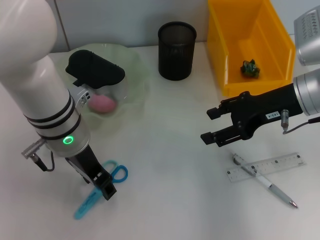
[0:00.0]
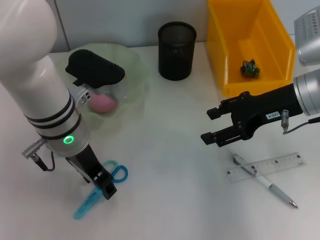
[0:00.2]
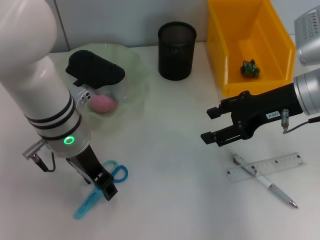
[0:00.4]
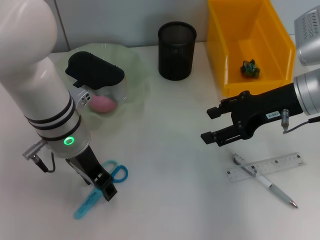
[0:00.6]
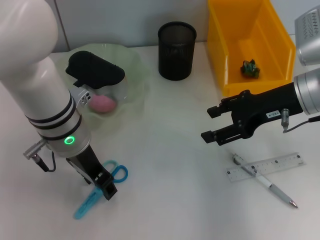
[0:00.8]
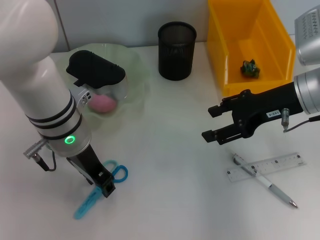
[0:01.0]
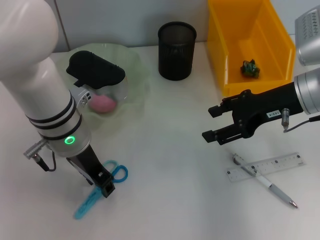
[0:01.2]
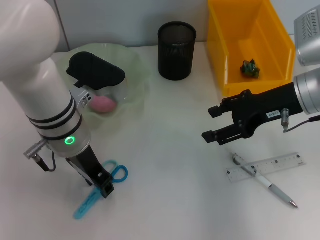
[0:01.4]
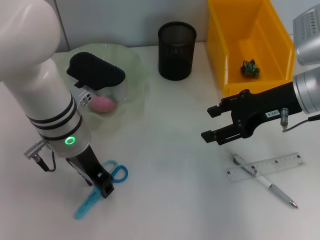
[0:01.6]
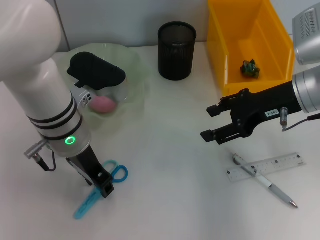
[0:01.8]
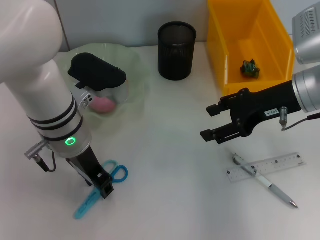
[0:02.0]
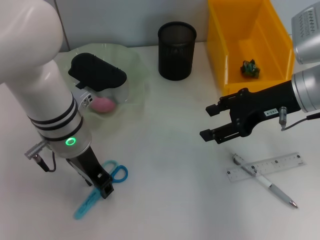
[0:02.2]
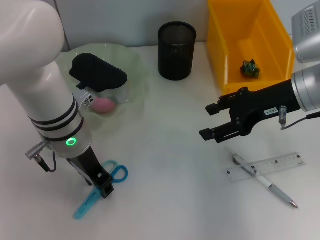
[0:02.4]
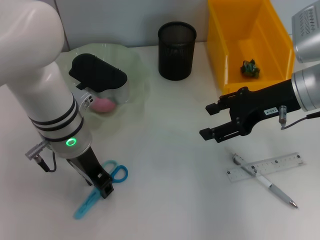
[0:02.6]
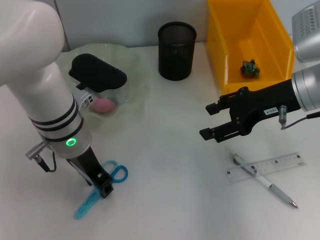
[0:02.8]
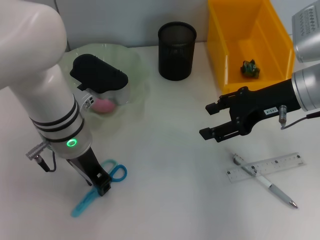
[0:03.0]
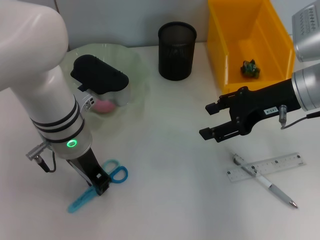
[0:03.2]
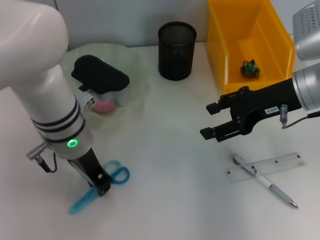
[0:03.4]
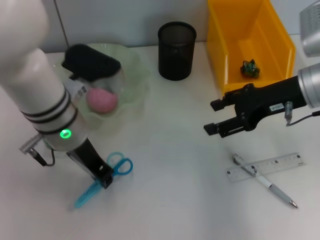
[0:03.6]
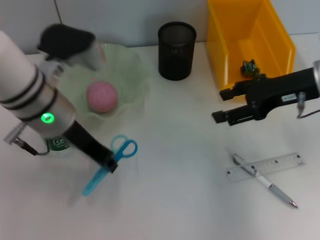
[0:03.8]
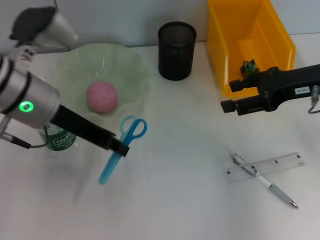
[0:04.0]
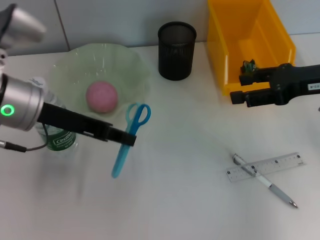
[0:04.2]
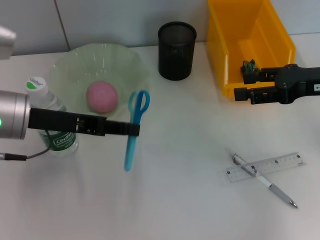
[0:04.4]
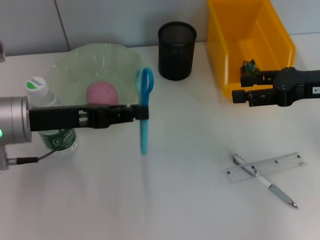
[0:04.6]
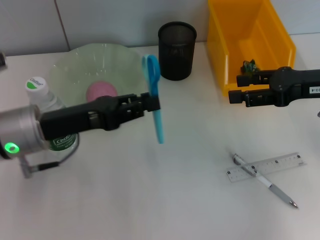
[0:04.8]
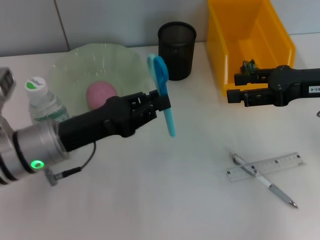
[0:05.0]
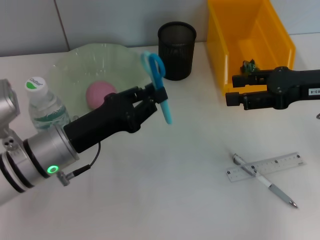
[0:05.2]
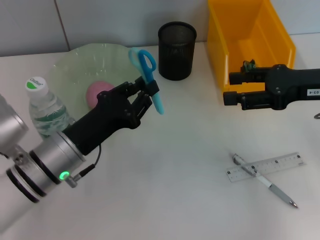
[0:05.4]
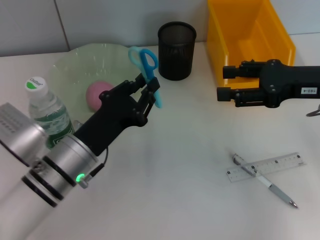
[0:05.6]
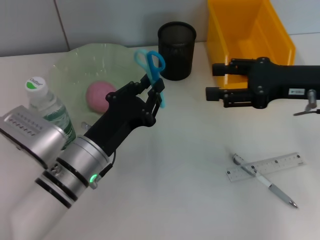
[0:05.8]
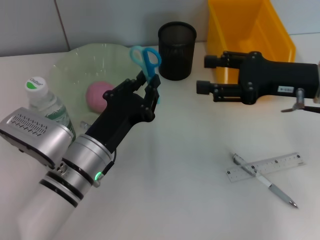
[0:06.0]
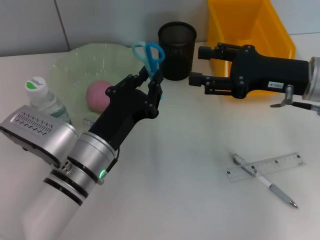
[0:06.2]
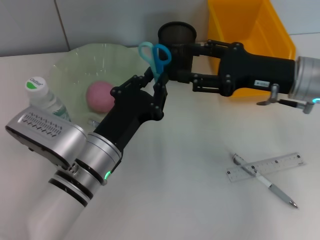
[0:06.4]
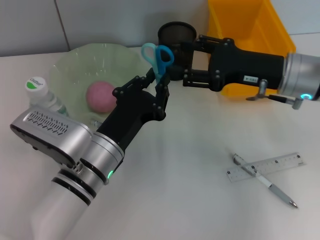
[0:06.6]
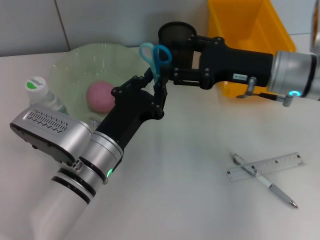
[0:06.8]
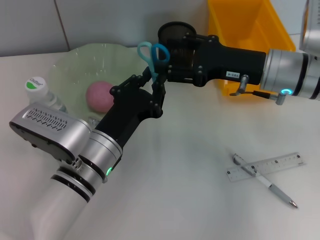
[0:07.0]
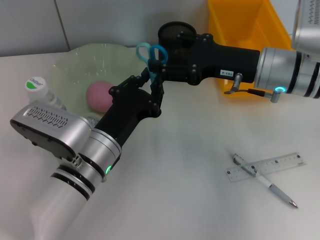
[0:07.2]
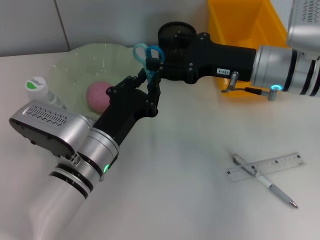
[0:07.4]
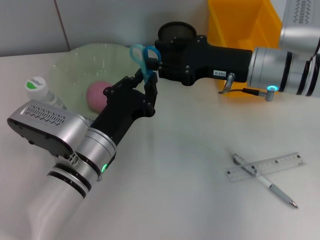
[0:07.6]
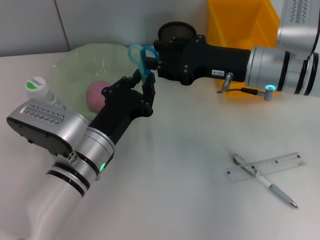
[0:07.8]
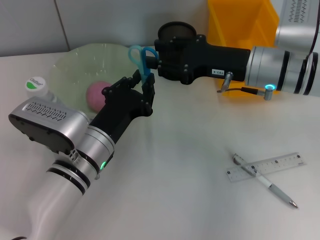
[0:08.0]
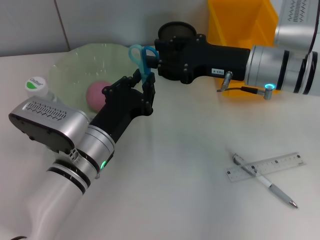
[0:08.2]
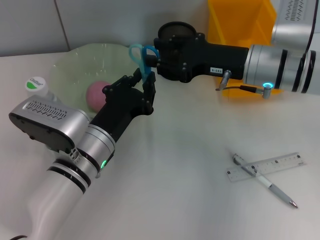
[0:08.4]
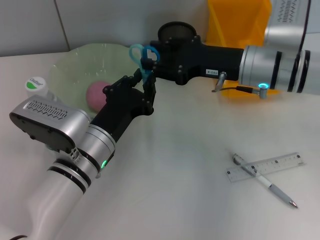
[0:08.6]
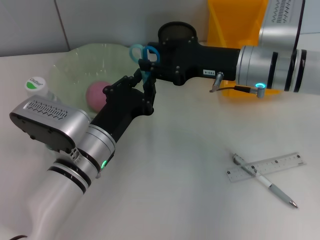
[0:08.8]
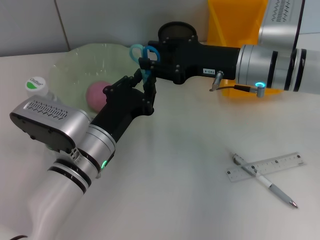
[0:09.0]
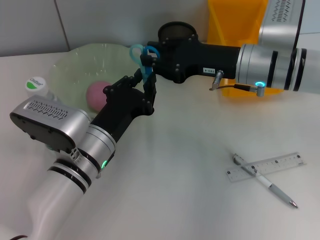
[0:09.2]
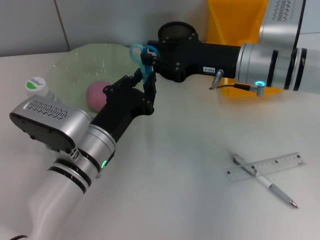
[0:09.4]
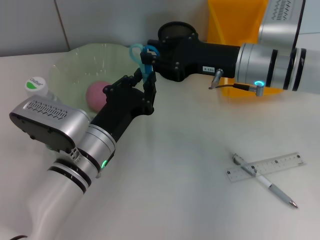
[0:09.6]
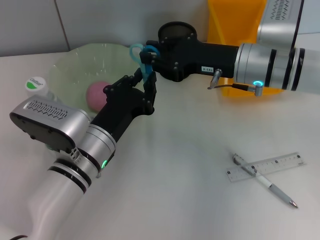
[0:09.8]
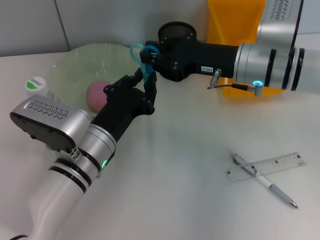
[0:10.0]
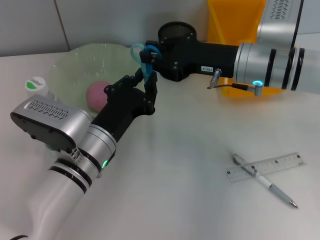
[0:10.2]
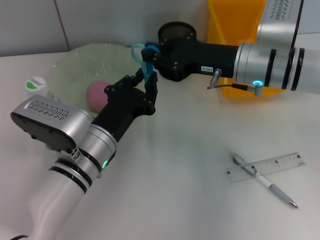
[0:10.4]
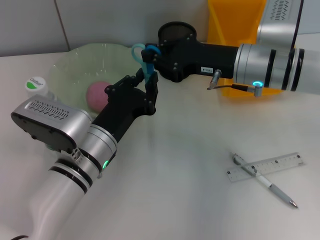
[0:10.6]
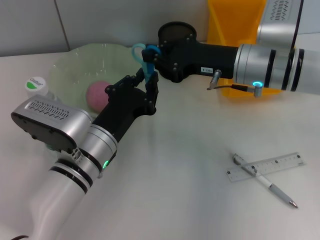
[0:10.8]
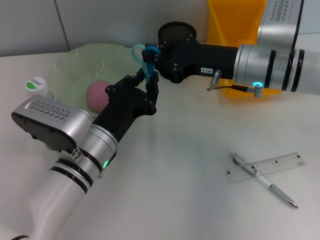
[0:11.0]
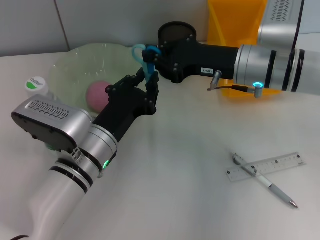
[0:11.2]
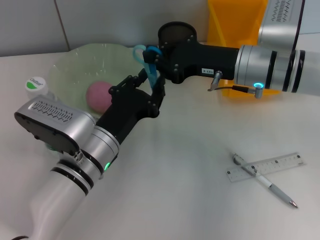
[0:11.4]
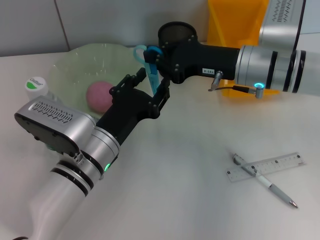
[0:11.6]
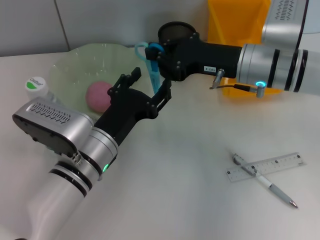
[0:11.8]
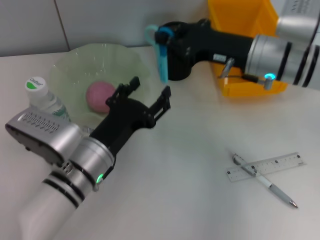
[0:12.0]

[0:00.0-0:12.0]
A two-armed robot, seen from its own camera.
Step, 0:00.0 to 0:03.2: Grab the blue scissors with the left hand.
Step, 0:03.4 to 0:11.2: Pass the blue scissors from the left hand to the right hand.
0:00.0 to 0:03.0: Both grippers stay put.
0:03.0 to 0:04.4: The right gripper shifts about 5 cm to the right, while the left gripper travels to the left by some 10 cm, and closes up.
0:04.4 to 0:06.0: The left gripper is displaced downward, to the right and backward by about 15 cm; the right gripper changes place by approximately 5 cm.
0:06.0 to 0:07.6: The right gripper is displaced to the left by approximately 5 cm.
0:07.6 to 0:09.0: There are only small adjustments of the grippers.
0:09.0 to 0:10.4: Both grippers stay put.
0:10.4 to 0:12.0: The left gripper opens.

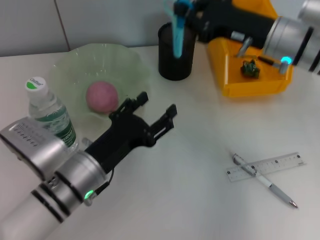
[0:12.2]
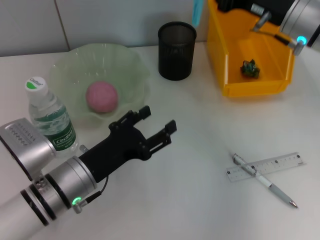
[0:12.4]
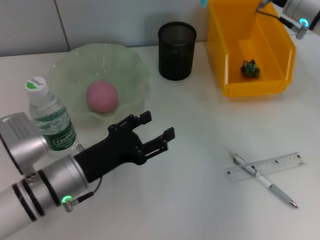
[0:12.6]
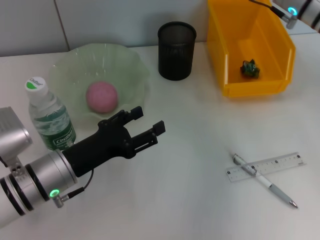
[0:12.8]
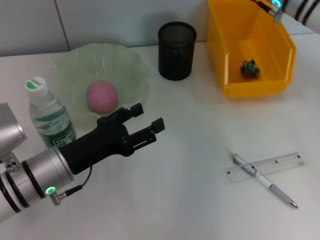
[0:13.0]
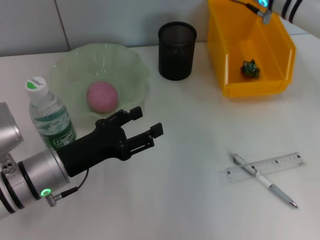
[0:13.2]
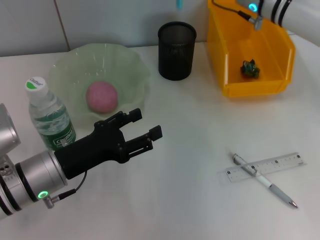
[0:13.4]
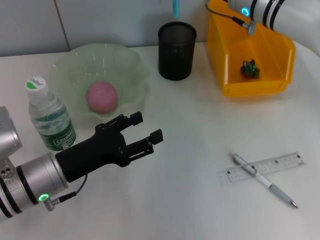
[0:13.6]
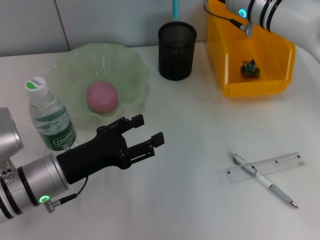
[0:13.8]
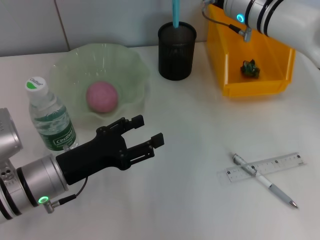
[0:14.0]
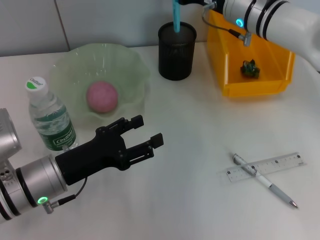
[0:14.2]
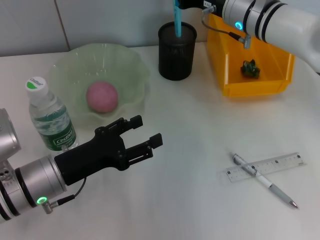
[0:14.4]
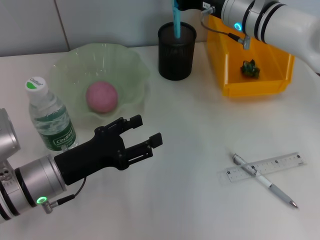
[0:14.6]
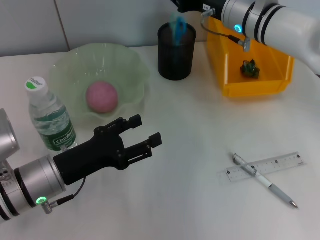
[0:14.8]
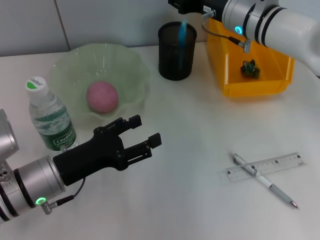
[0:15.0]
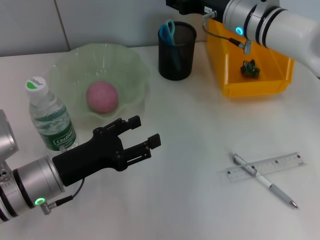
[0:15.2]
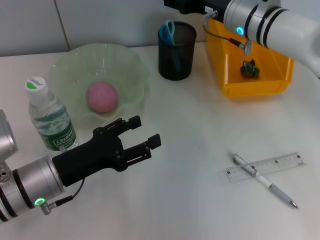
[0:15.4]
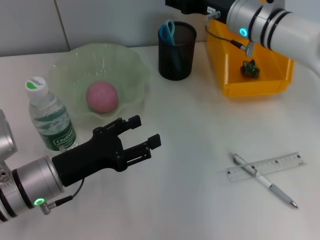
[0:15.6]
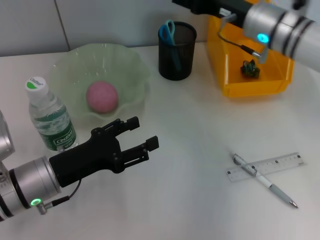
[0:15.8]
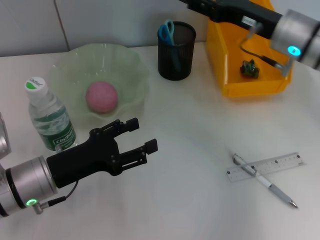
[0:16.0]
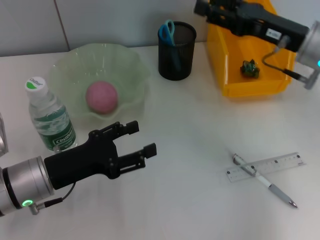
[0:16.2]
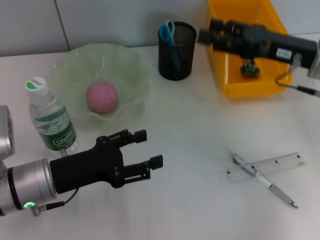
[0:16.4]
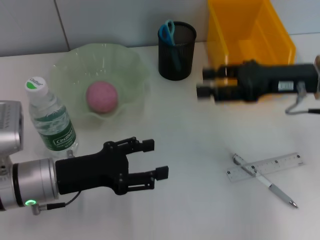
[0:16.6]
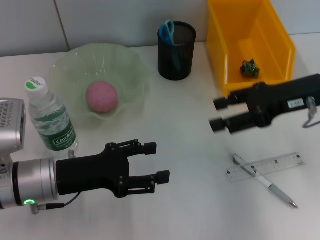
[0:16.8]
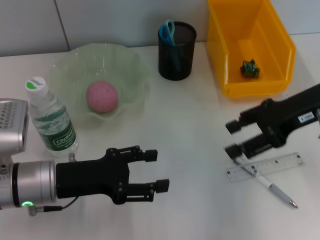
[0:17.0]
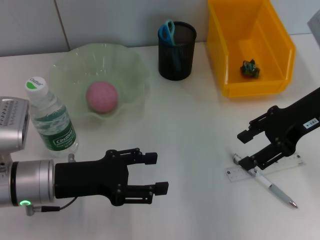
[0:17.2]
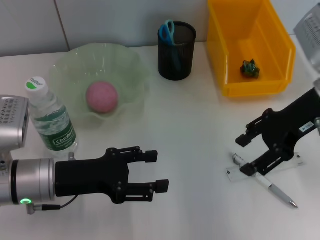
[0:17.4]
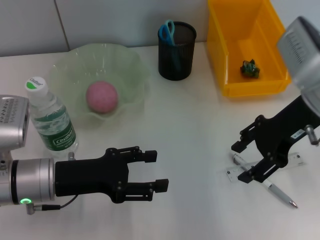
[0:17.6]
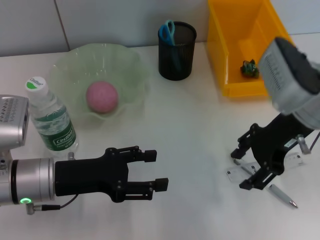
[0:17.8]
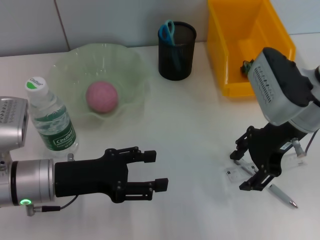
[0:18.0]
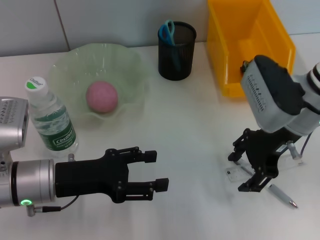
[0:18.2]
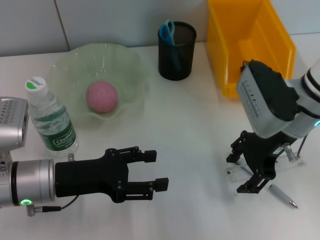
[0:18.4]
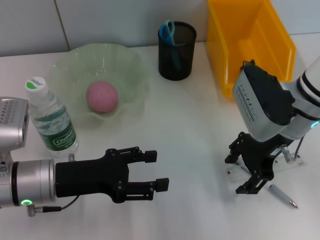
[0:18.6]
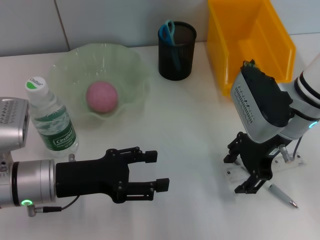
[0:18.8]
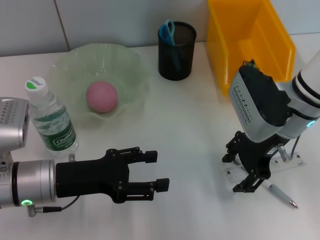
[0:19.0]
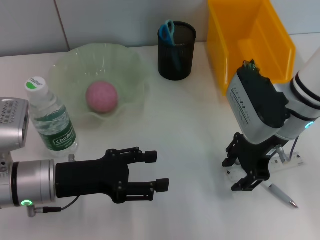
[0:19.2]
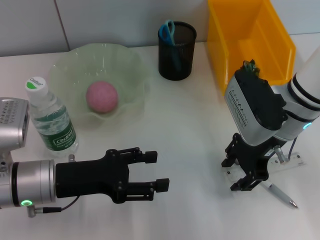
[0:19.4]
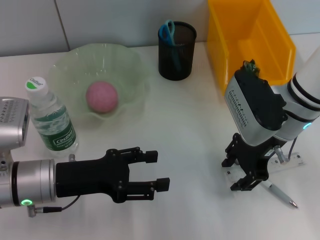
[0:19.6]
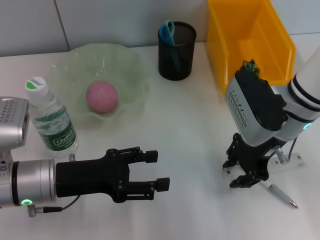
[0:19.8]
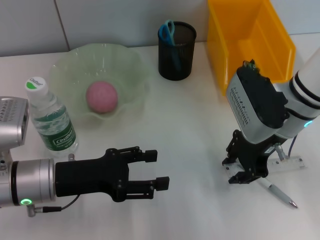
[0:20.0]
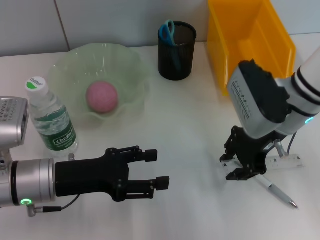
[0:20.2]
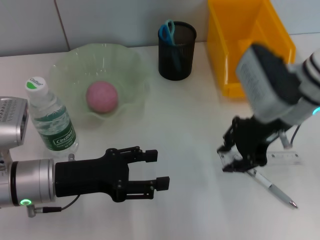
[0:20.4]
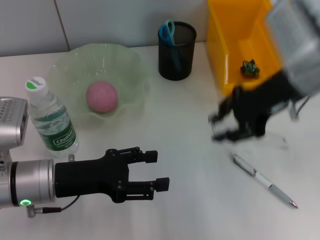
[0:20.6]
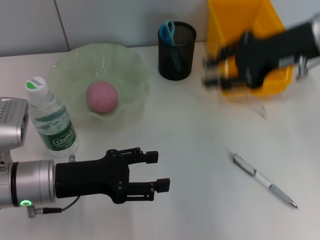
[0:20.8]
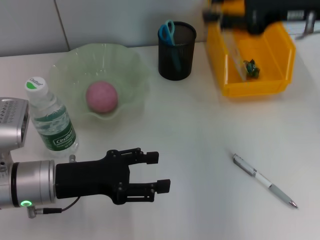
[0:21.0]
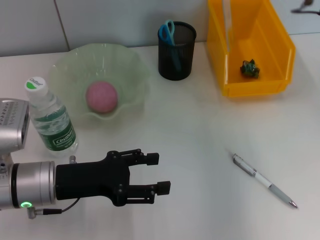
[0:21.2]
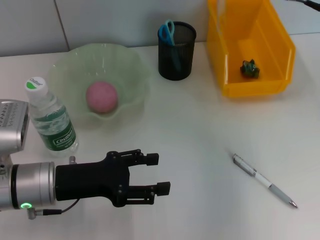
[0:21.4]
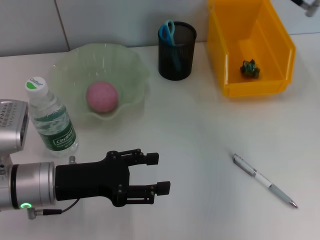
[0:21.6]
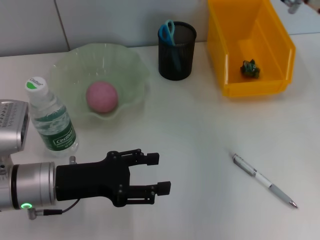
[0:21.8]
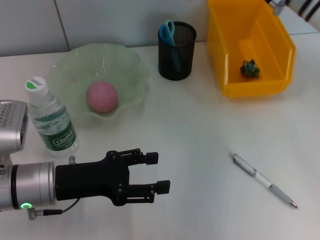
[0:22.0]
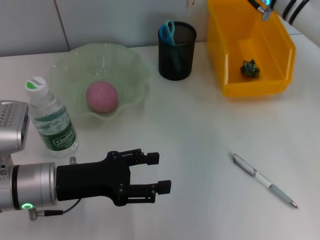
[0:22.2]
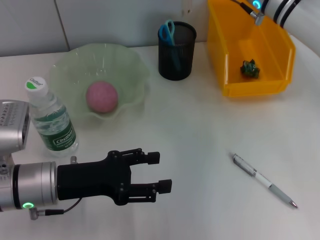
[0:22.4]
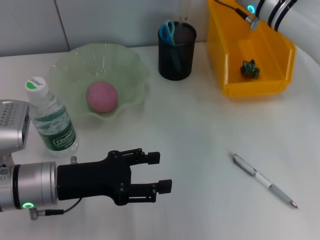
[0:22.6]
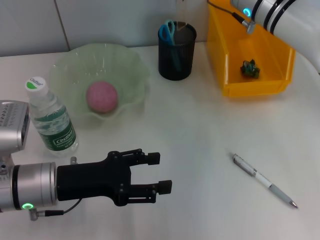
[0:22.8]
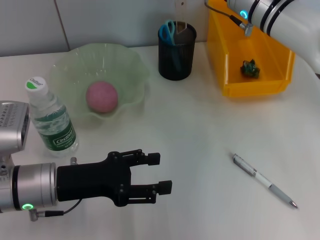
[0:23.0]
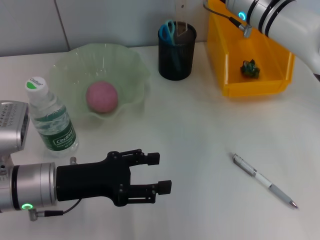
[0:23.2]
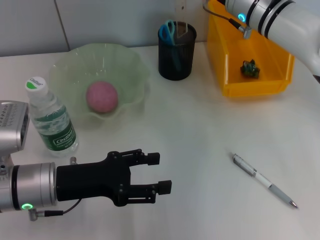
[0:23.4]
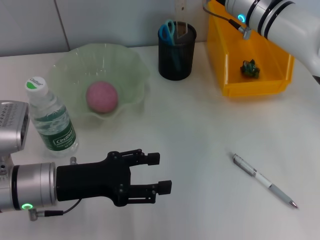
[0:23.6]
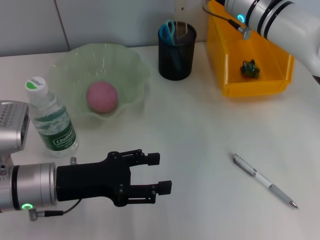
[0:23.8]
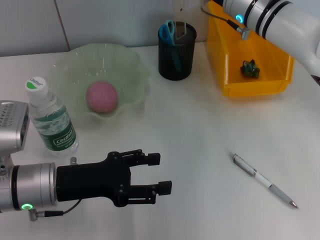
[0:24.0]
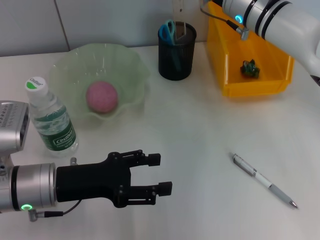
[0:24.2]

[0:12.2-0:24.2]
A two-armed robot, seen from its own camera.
Step, 0:12.2 to 0:15.0: Place the blue scissors into the pen holder with the right hand.
Step, 0:15.2 to 0:19.8: Grab the ruler with the right hand.
0:12.2 to 0:13.8: The left gripper travels to the left by some 5 cm, while the right gripper shifts roughly 5 cm forward.
0:13.8 to 0:15.2: The right gripper opens up.
0:15.2 to 0:16.6: The right gripper heads backward and to the right, covering about 15 cm, and opens its fingers.
0:16.6 to 0:18.2: The right gripper goes roughly 5 cm to the left.
0:18.2 to 0:19.8: There are only small adjustments of the grippers.
0:19.8 to 0:21.2: The right gripper heads upward and to the right, covering about 15 cm.
0:21.2 to 0:22.6: The right gripper shifts some 15 cm to the left, forward and downward.
0:22.6 to 0:24.2: The grippers make only small movements.
